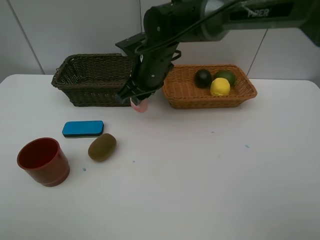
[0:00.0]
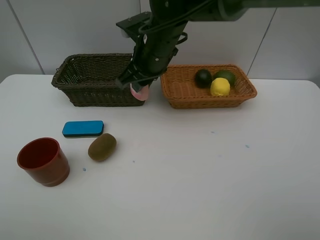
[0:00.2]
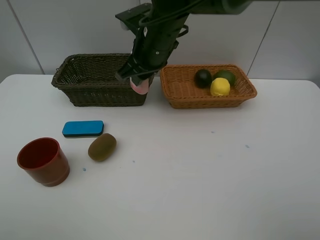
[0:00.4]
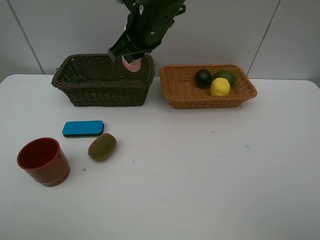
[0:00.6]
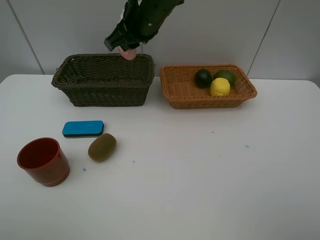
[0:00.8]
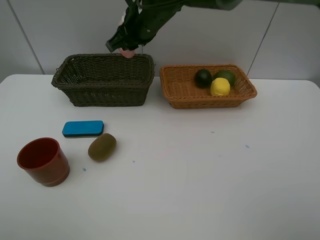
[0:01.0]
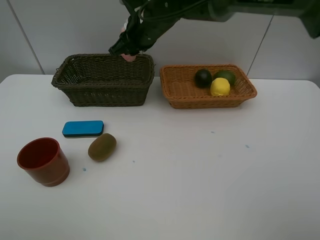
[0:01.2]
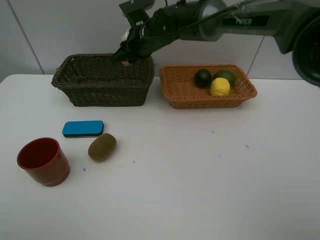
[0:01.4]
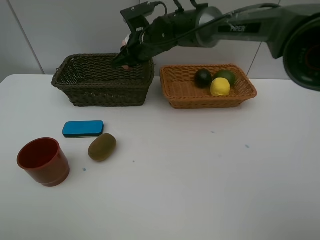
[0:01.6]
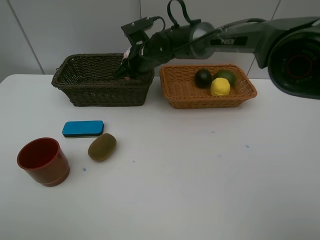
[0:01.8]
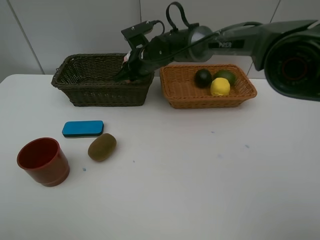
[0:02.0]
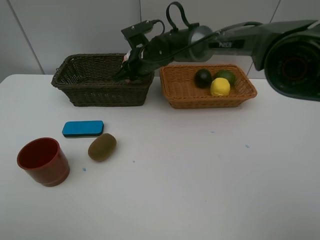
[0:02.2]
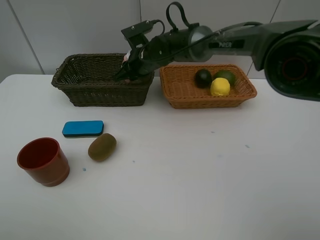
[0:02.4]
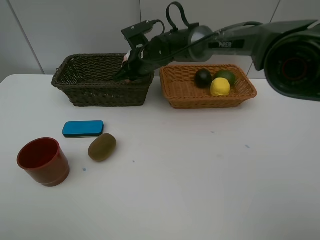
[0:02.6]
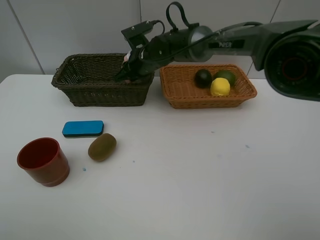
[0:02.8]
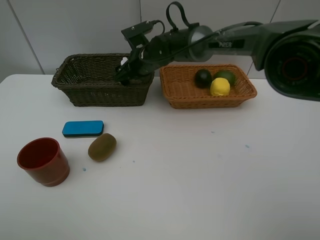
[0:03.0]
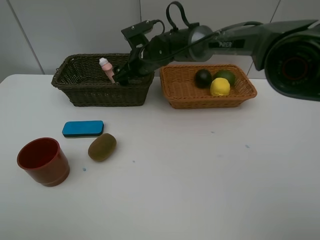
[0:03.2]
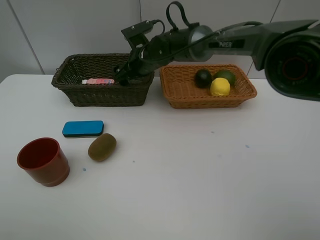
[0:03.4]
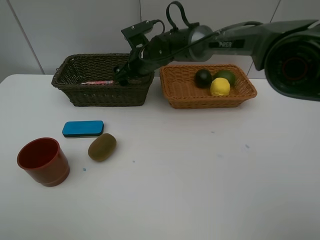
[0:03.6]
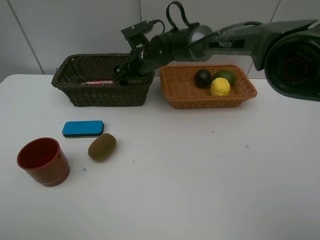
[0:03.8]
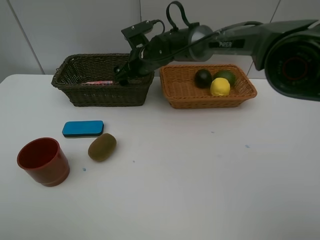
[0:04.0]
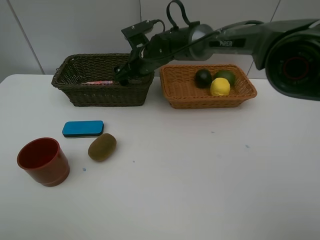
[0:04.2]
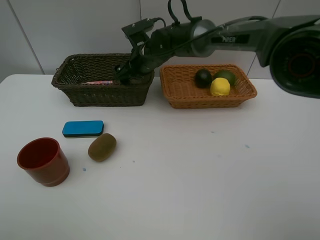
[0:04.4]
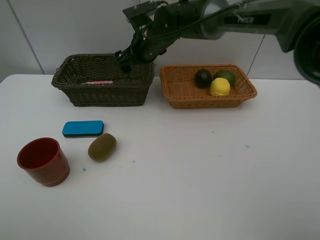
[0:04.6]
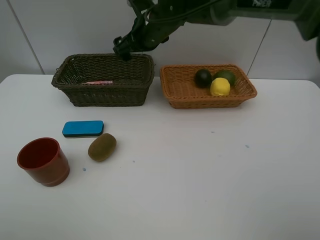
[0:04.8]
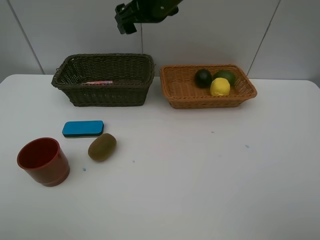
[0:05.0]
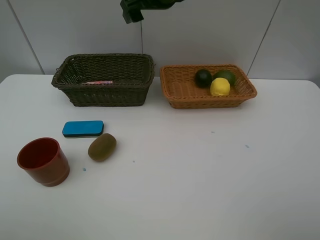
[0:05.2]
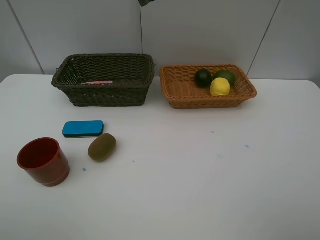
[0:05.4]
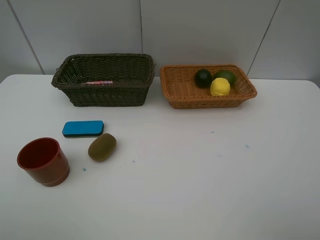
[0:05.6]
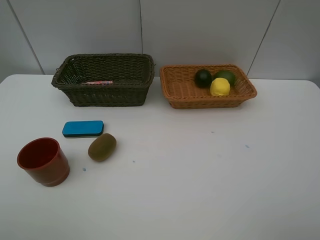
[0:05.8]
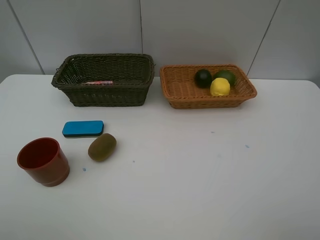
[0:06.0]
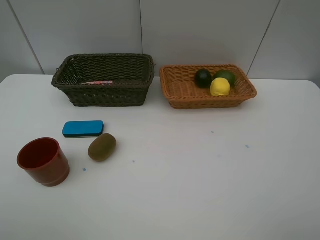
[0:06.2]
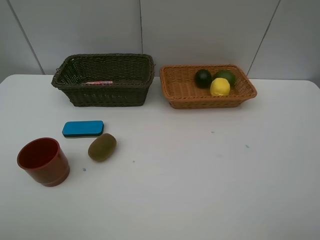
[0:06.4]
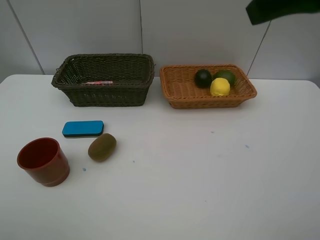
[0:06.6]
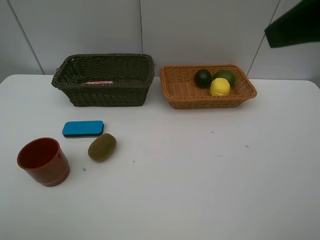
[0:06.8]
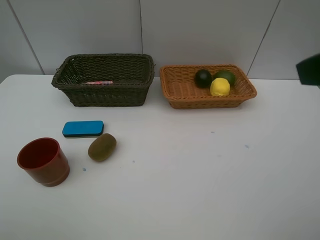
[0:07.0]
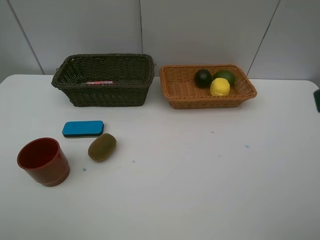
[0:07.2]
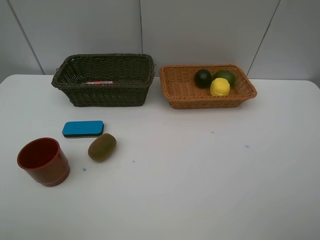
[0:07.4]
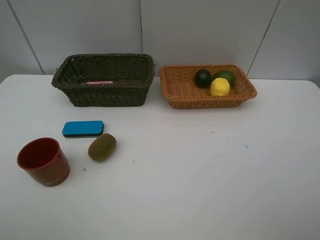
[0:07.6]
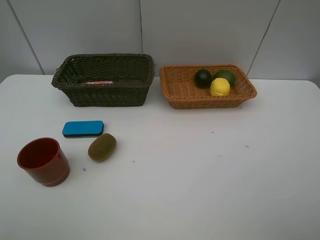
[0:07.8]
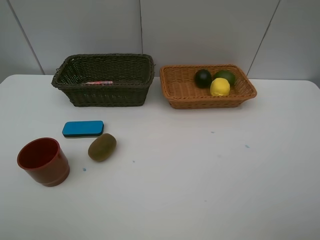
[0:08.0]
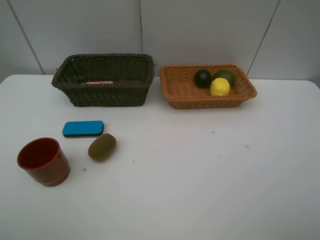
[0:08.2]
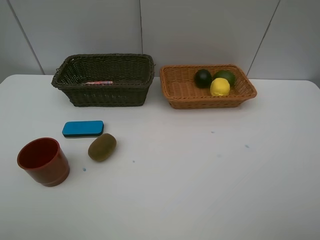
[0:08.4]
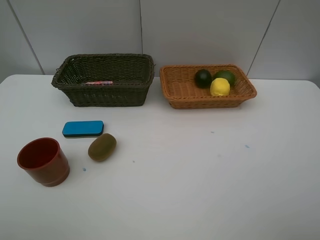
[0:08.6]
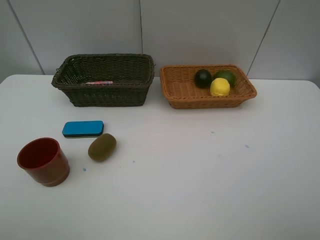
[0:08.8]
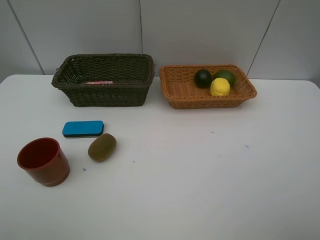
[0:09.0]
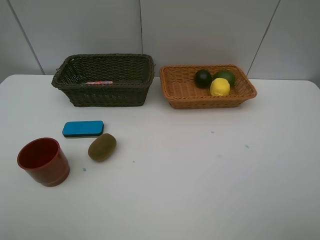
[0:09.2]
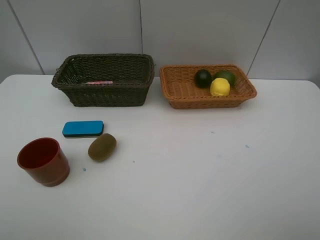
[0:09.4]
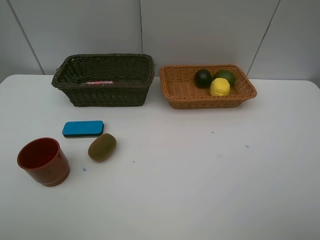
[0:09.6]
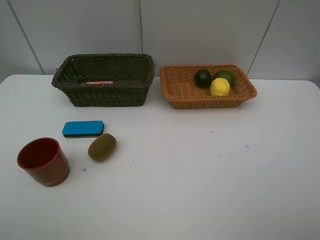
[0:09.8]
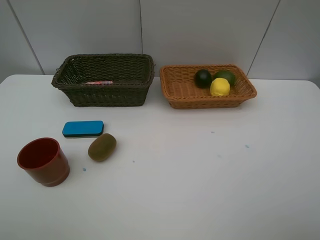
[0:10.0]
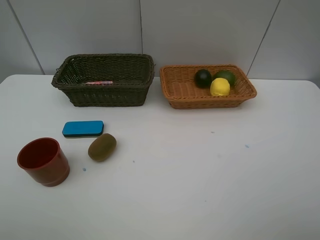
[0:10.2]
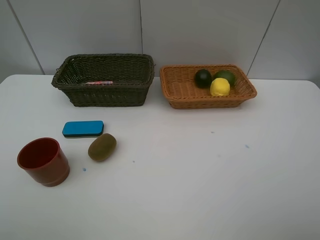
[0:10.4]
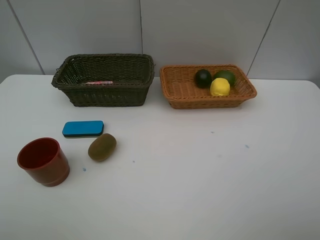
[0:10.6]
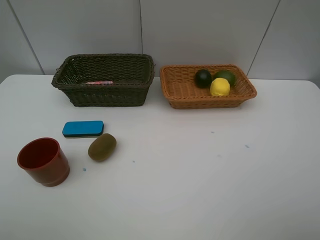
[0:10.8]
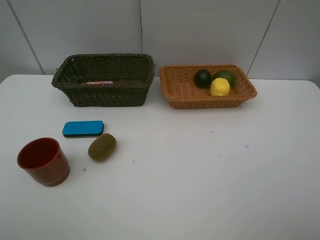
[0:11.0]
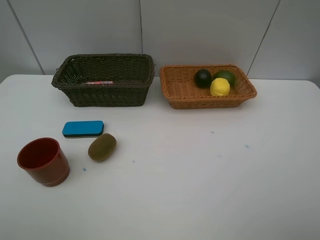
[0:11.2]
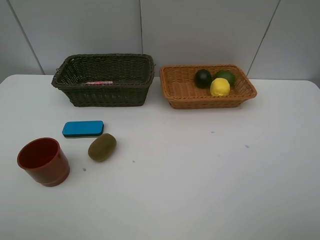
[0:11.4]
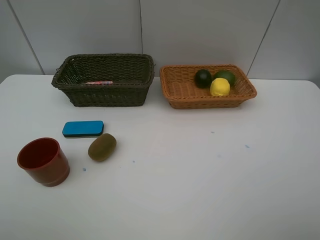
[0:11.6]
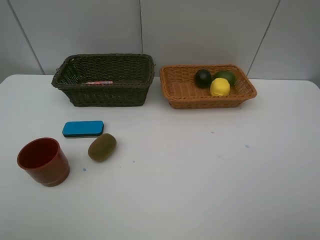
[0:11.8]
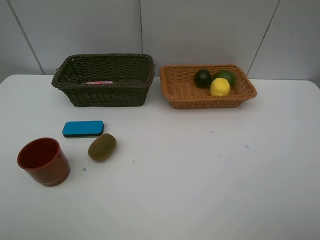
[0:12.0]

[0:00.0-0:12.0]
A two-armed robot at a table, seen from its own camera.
Task of the whole recording: Place multiple objects separately in different baskets.
Step, 0:00.0 to 0:03.6: Place the laundry detergent in the dark basket with right gripper.
0:00.0 to 0:01.6: The right gripper moves forward, some 10 cm, and goes upward and returns, about 10 cm each way.
0:01.6 to 0:03.0: The right gripper opens its fingers.
0:03.0 to 0:04.4: The grippers stay close to where they were, moving slightly.
0:04.4 to 0:06.0: The right gripper heads upward, backward and to the right, covering about 35 cm.
0:10.4 to 0:12.0: The two grippers keep their place.

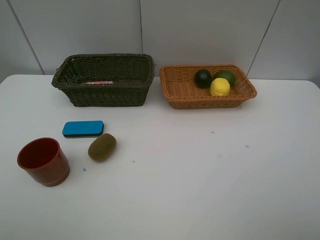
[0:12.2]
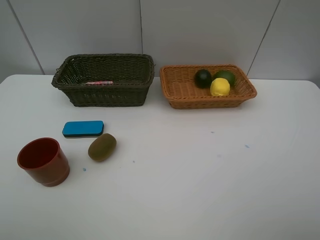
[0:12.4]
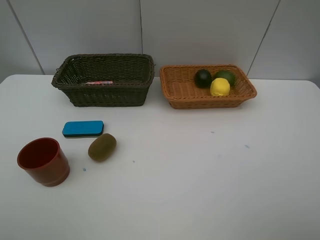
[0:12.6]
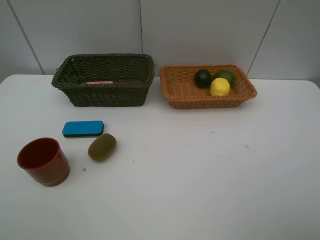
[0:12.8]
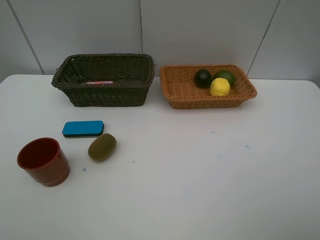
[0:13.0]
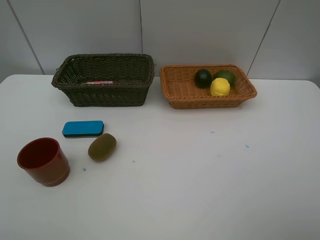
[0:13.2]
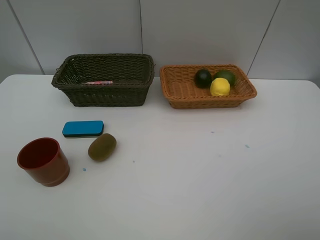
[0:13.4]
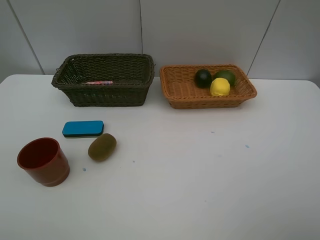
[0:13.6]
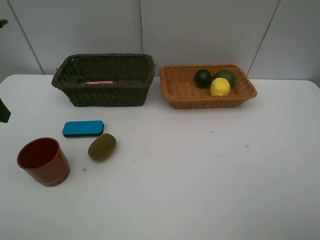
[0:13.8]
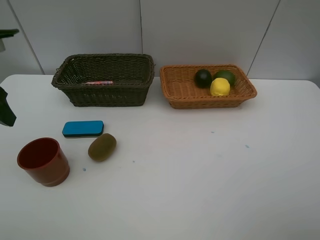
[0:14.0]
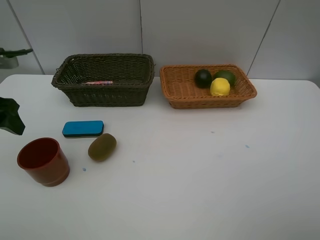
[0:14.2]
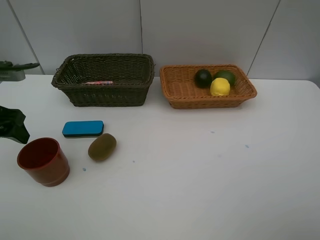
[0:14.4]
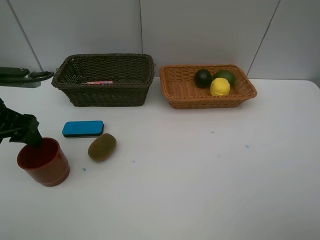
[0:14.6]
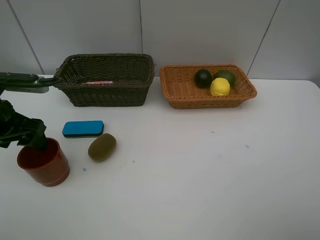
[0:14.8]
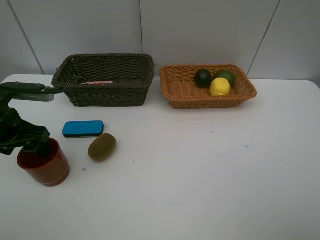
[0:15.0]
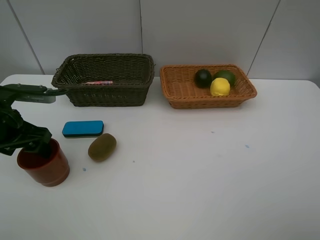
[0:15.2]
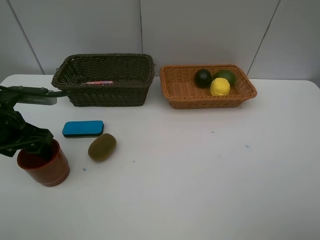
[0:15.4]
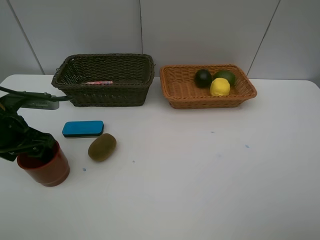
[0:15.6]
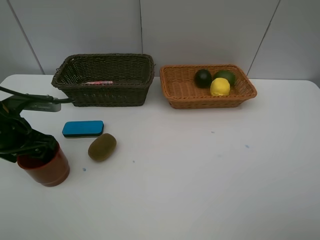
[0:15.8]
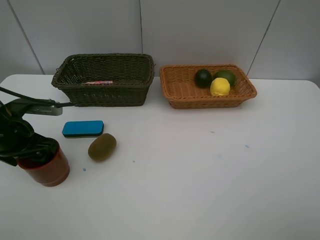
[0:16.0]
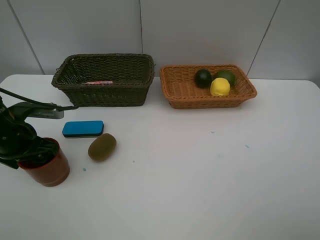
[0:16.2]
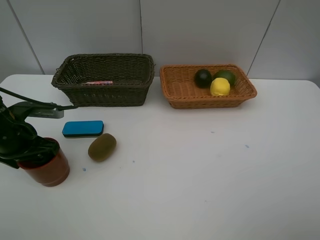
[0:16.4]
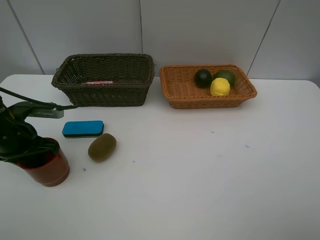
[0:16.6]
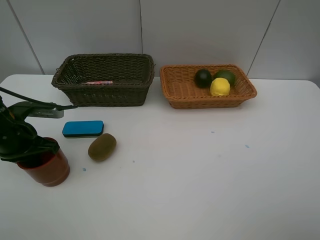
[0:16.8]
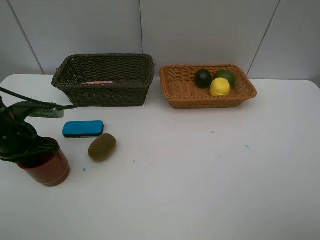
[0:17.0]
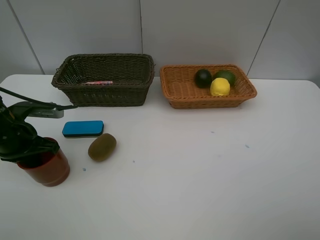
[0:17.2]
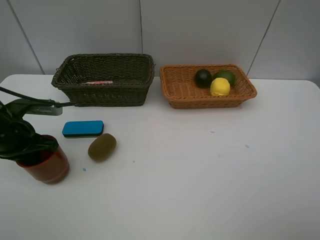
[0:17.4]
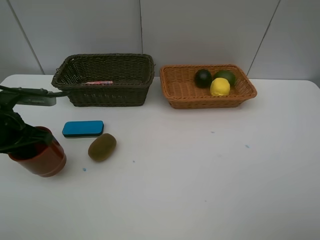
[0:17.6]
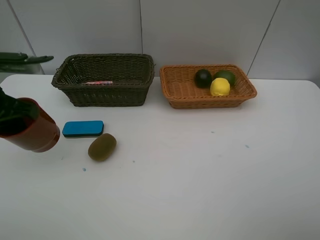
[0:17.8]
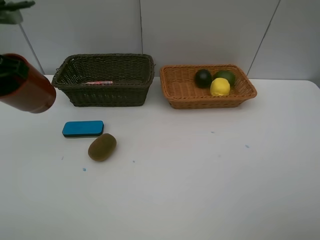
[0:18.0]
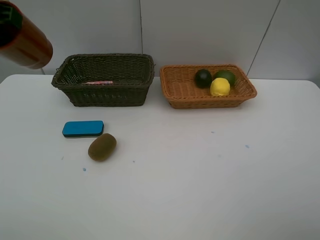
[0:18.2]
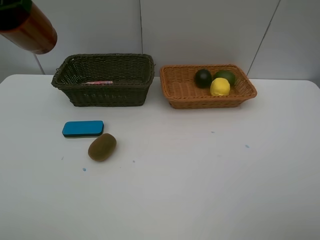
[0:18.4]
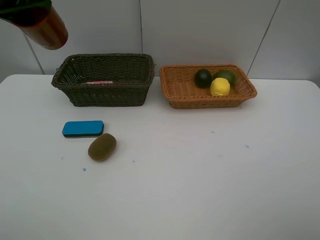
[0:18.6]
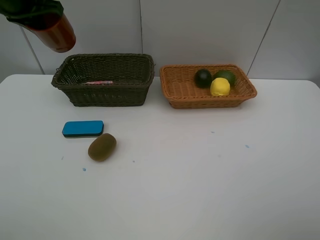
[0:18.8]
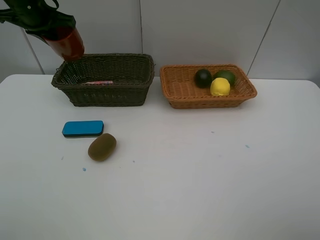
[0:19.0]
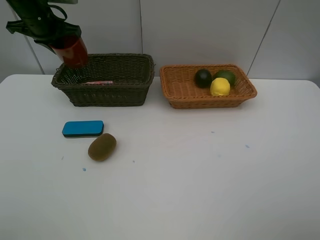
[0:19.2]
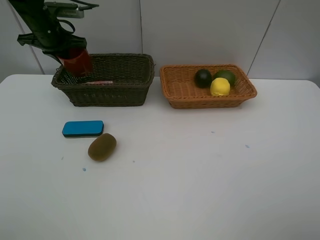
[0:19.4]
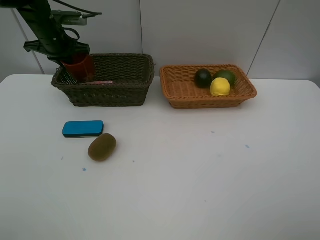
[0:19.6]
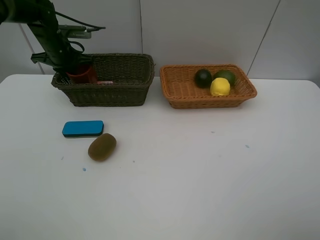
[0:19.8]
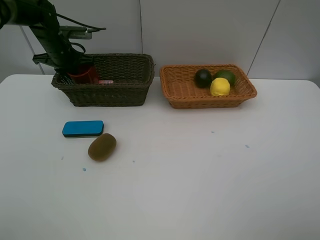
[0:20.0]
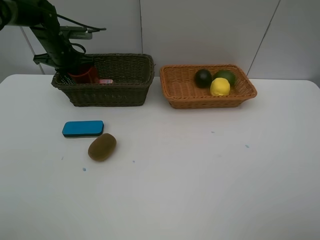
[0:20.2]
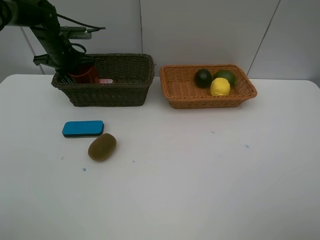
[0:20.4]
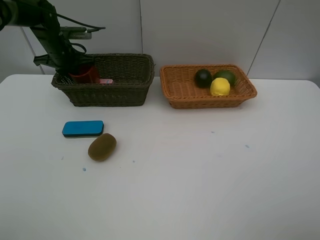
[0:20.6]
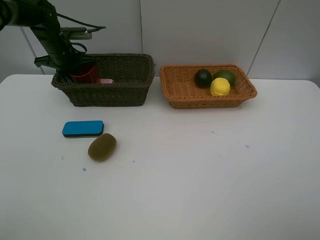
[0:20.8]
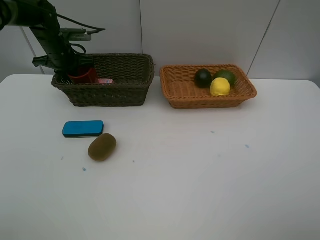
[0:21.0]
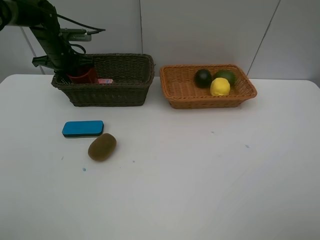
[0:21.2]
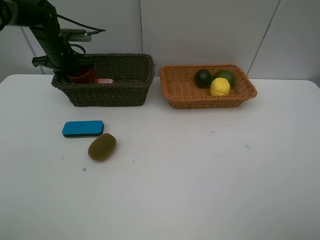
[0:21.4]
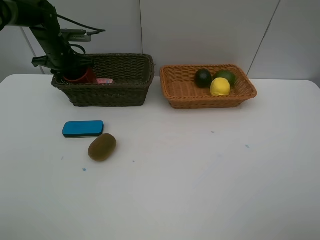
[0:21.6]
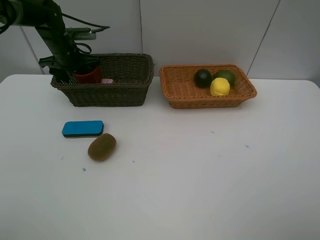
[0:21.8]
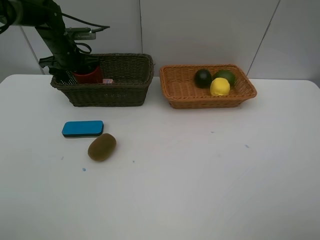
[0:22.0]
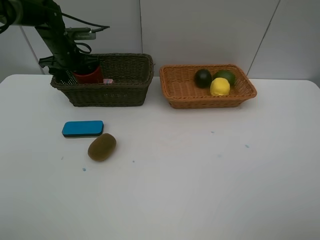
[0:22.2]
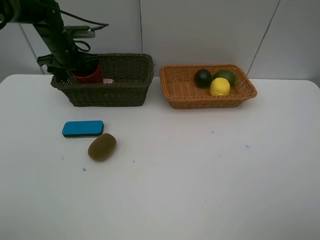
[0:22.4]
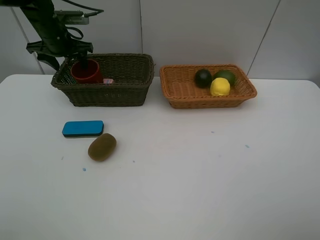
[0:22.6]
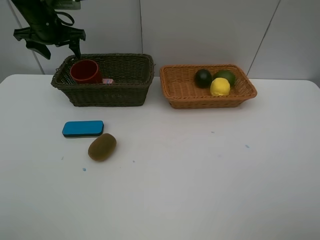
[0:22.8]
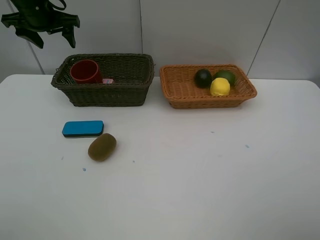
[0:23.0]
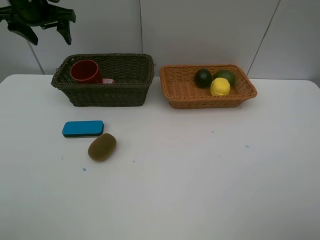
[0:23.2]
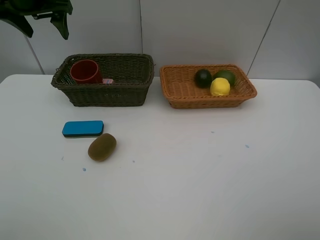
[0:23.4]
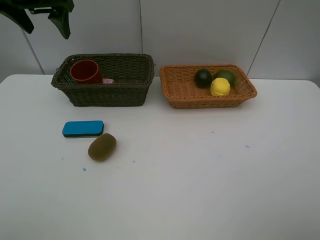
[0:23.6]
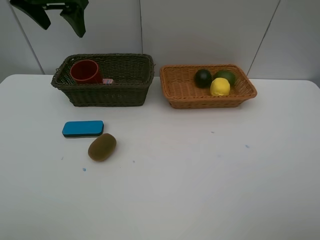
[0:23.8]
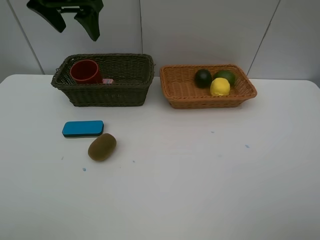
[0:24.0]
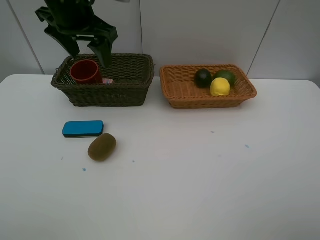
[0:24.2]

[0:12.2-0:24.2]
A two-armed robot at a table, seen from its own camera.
Task of the whole recording: Place multiple objects separately in different baskets.
Step, 0:12.2 to 0:17.6: Pick up the dark brown cup with left gripper.
Step, 0:17.8 to 0:22.8: Place the dark brown cup in the dark basket with left gripper.
0:13.8 to 0:15.2: The left gripper moves downward, approximately 10 cm.
0:15.2 to 0:16.6: The left gripper closes its fingers.
0:16.6 to 0:18.2: The left gripper shifts about 20 cm upward.
0:18.2 to 0:19.8: The left gripper heads forward and downward, covering approximately 25 cm.
0:19.8 to 0:21.2: Both grippers stay about where they are.
0:21.2 to 0:22.6: The left gripper travels upward by roughly 5 cm, and opens up.
0:22.6 to 0:24.2: The left gripper is displaced backward, to the right and upward by about 20 cm.
